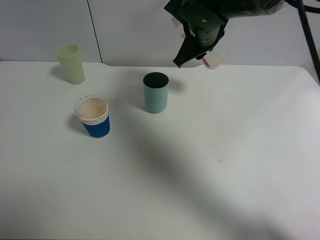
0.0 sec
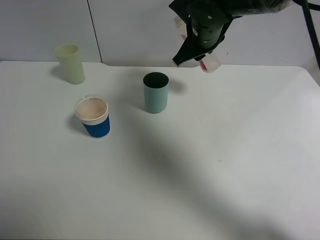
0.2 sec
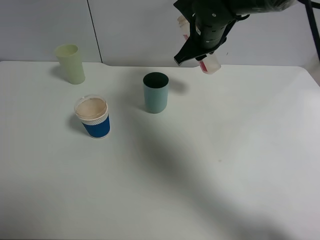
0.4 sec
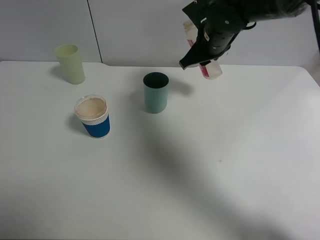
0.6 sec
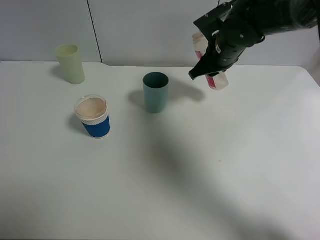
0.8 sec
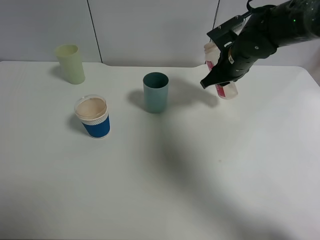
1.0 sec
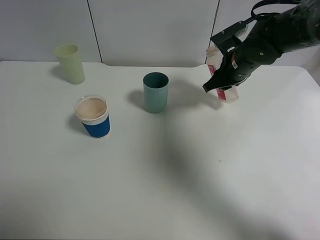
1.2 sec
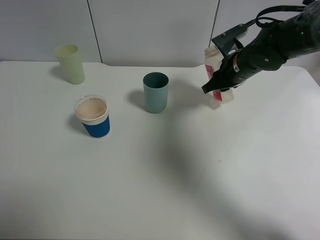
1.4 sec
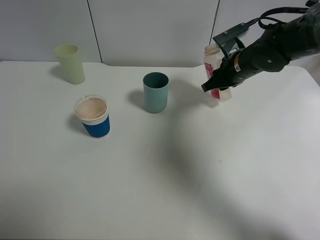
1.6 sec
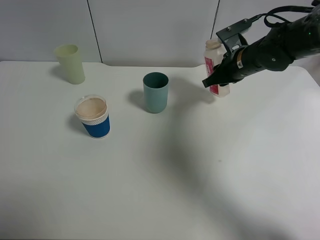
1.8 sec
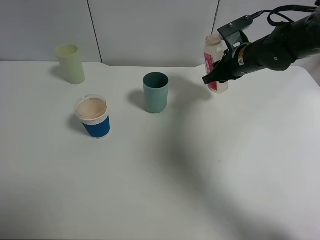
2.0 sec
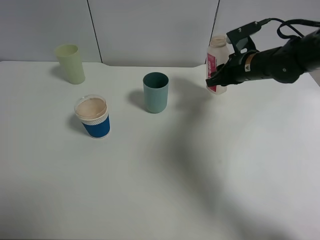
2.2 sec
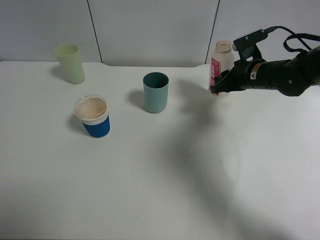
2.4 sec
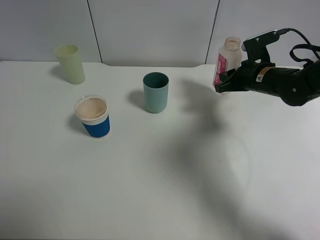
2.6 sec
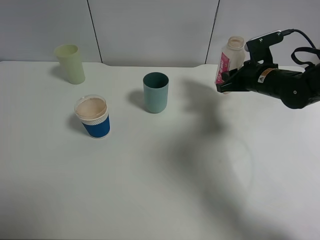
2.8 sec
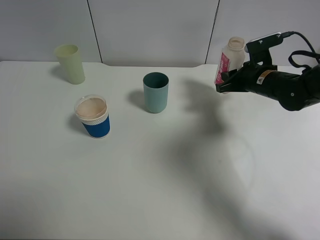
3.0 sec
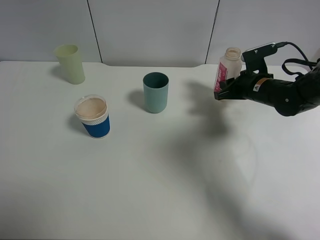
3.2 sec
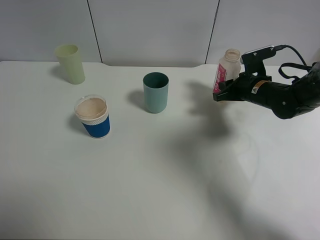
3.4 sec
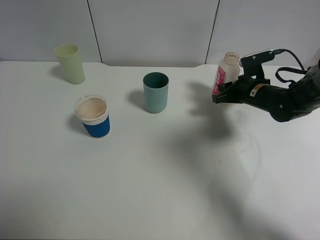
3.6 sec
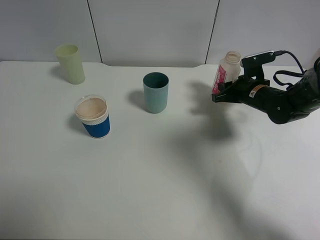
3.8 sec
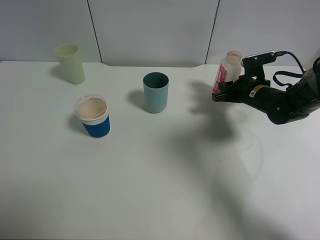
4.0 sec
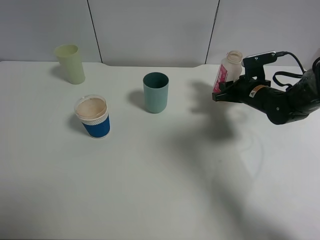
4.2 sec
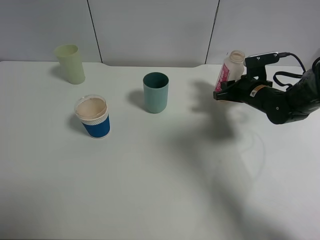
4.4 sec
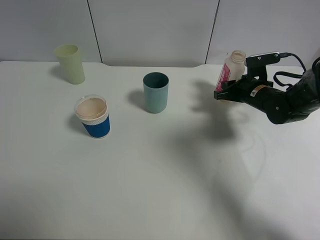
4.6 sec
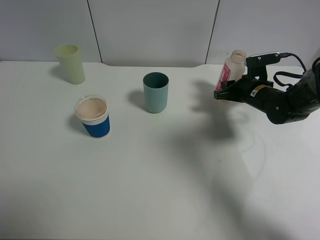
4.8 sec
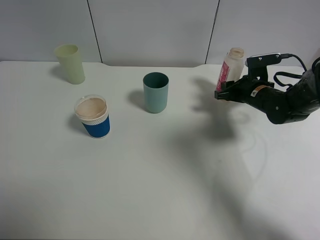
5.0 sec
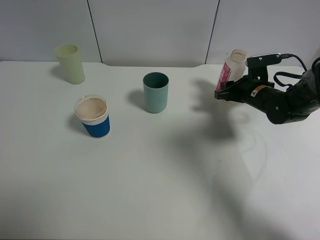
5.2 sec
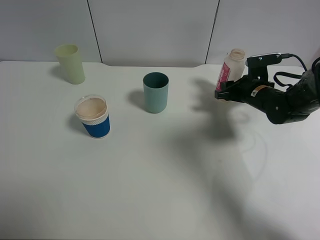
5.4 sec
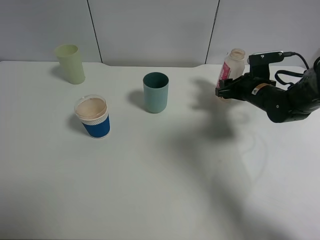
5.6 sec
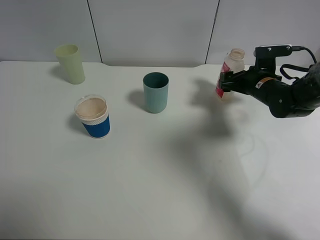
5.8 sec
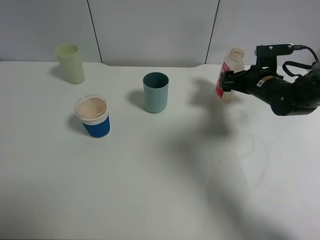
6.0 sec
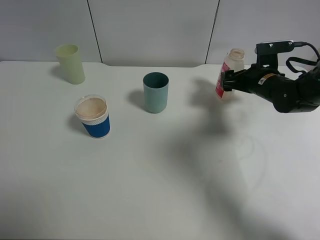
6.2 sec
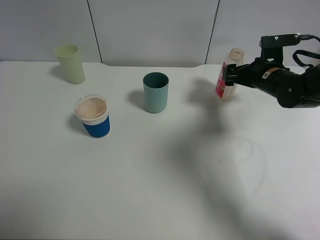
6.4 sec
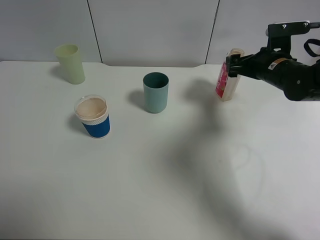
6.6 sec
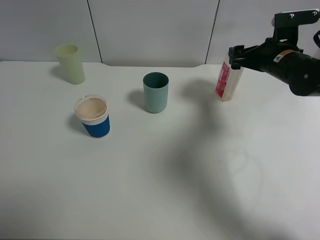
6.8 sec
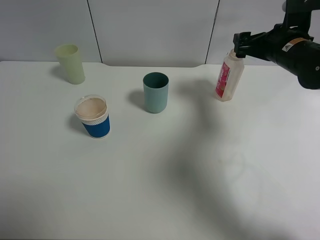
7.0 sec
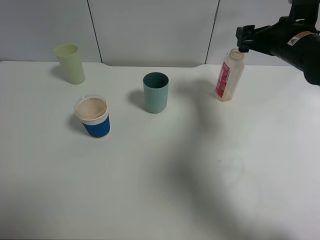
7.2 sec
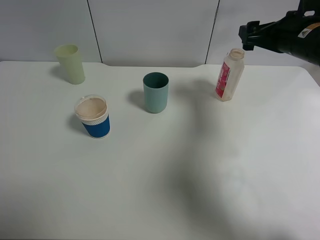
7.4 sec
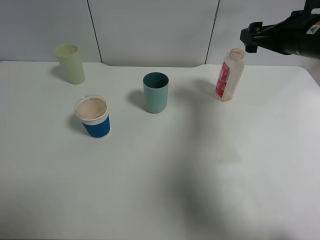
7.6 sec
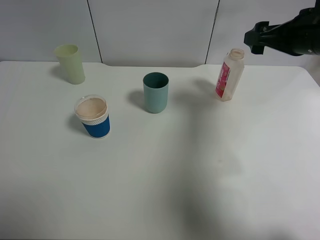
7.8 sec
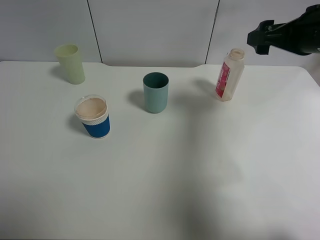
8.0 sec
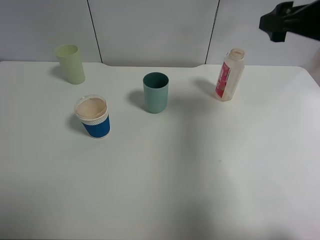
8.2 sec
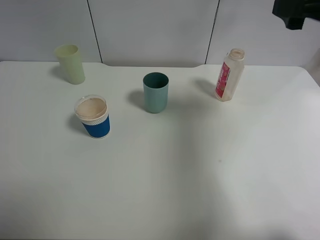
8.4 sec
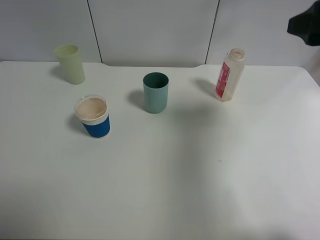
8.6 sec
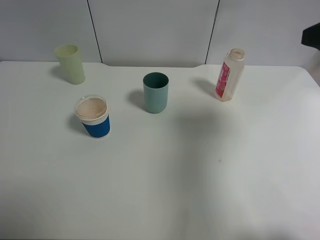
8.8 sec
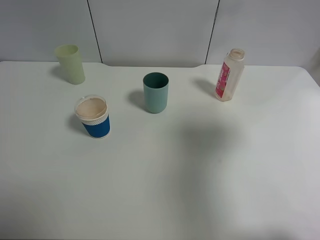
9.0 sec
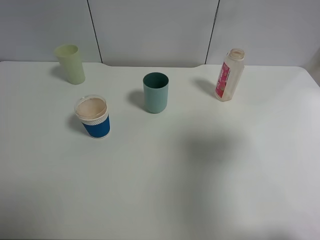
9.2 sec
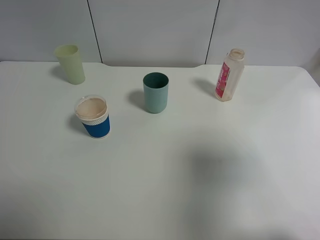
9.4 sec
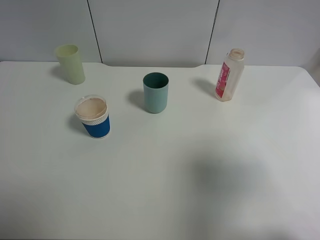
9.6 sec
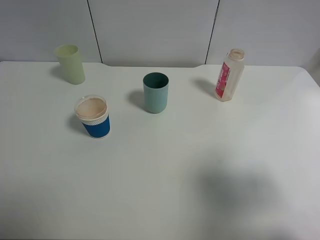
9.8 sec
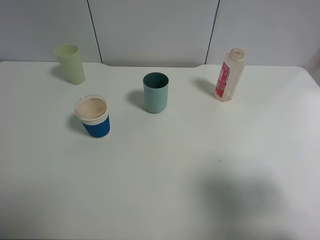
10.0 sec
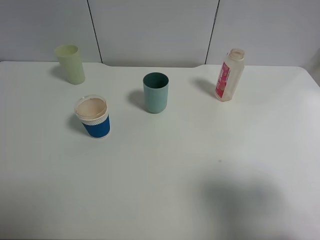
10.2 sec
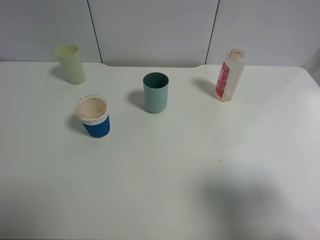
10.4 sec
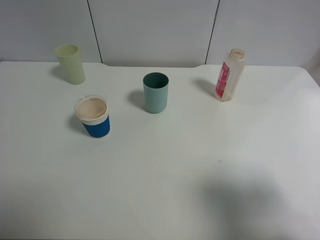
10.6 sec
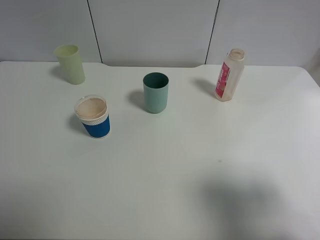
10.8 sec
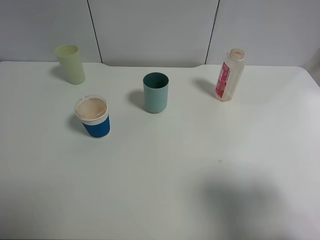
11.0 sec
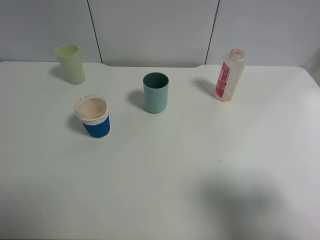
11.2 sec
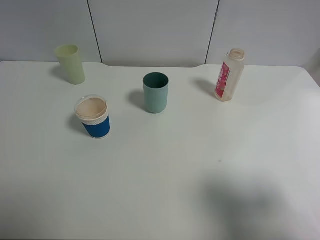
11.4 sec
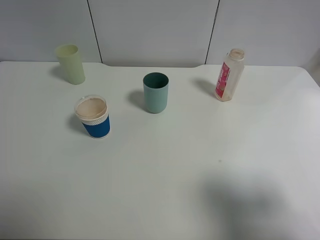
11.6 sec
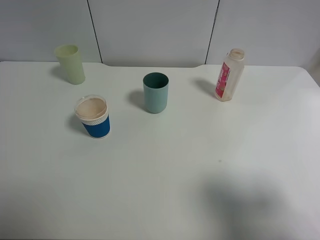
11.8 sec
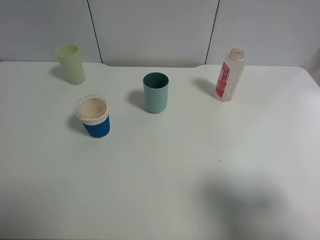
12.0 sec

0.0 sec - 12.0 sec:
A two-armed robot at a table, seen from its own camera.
Task of the whole recording: use a clamp to hold the bottle of the drink, pour the beverage into a random cup, then clamp the cup containing the drink and pour the drink into another random cup.
Step, 0.0 sec - 5.2 sec: Place the drink bottle on the table with right gripper.
0.0 sec - 1.6 sec: The right gripper travels to the right and downward by approximately 15 cm.
1.6 sec - 3.0 sec: The right gripper goes about 5 cm to the right.
3.0 sec - 4.4 sec: The right gripper ends up about 5 cm from where it was.
4.4 sec - 6.0 sec: The right gripper opens up.
6.0 sec - 7.6 sec: The right gripper heads upward, covering some 15 cm.
7.6 sec - 9.0 sec: The right gripper shifts about 20 cm backward and upward.
9.0 sec - 10.4 sec: The right gripper moves backward and downward, about 15 cm.

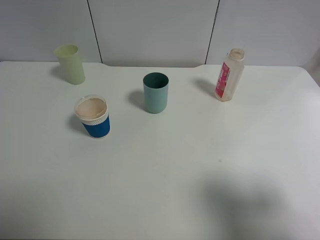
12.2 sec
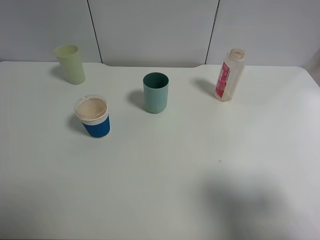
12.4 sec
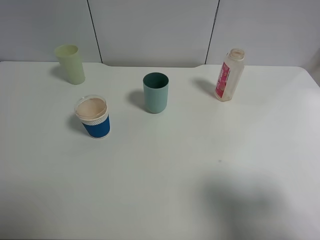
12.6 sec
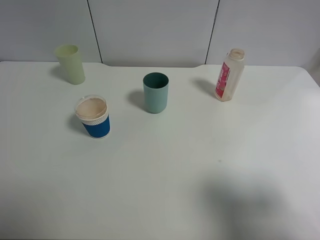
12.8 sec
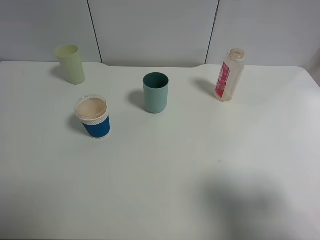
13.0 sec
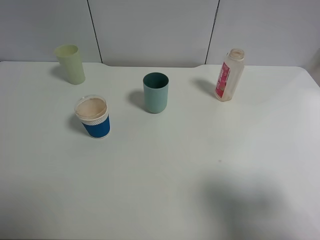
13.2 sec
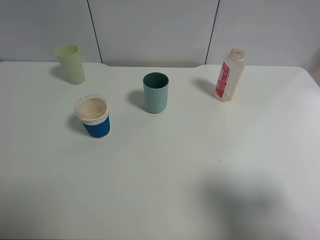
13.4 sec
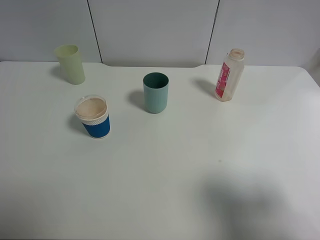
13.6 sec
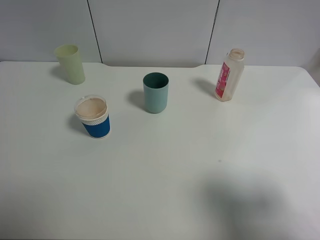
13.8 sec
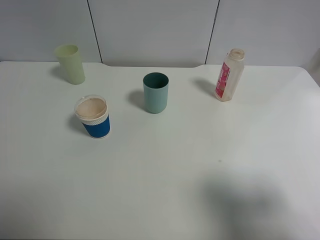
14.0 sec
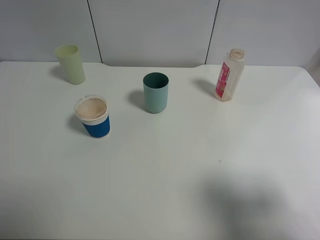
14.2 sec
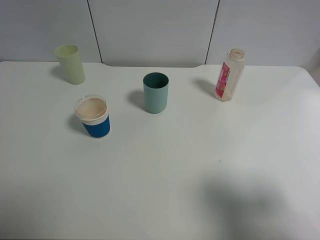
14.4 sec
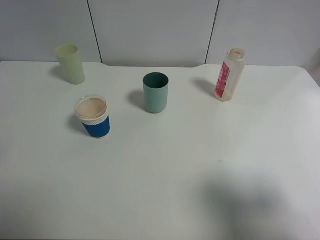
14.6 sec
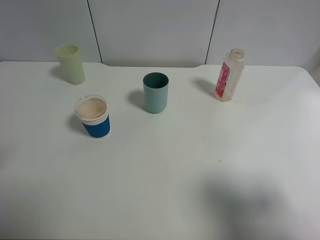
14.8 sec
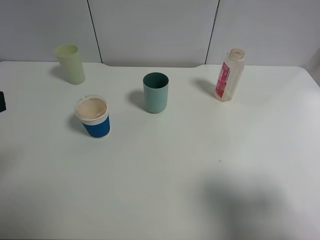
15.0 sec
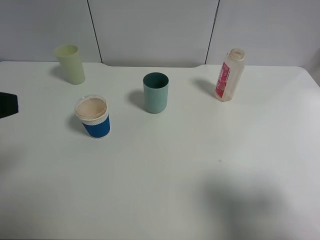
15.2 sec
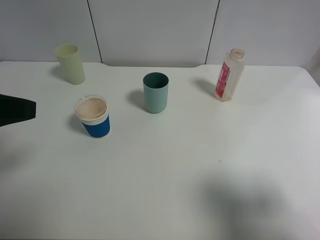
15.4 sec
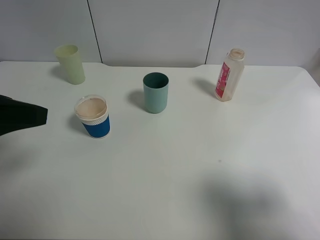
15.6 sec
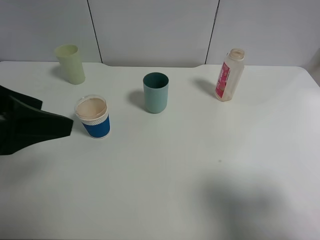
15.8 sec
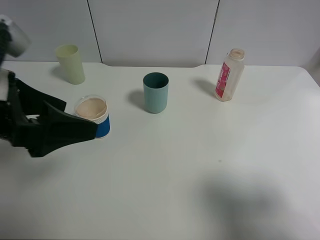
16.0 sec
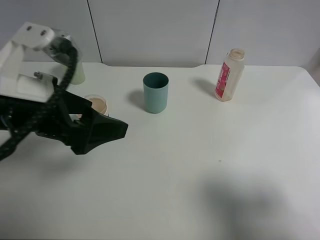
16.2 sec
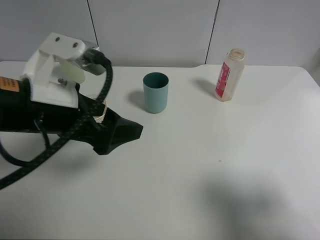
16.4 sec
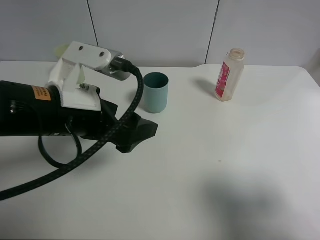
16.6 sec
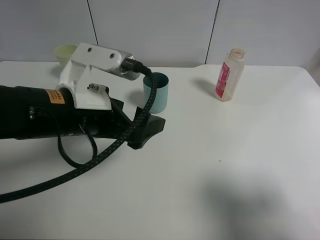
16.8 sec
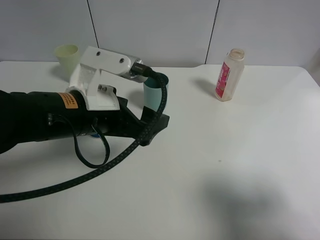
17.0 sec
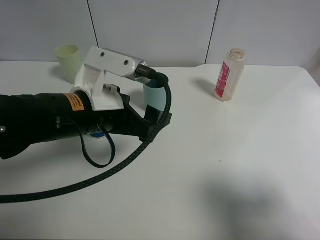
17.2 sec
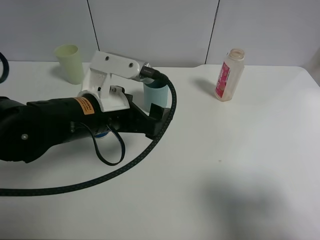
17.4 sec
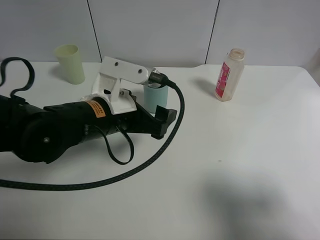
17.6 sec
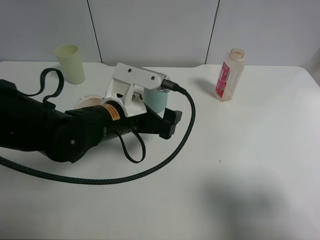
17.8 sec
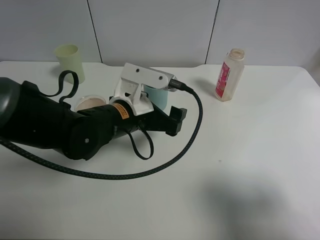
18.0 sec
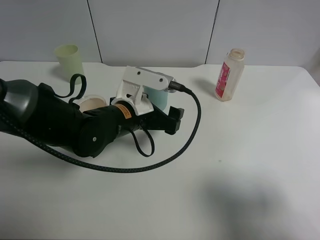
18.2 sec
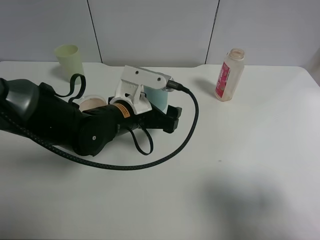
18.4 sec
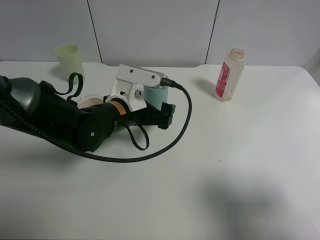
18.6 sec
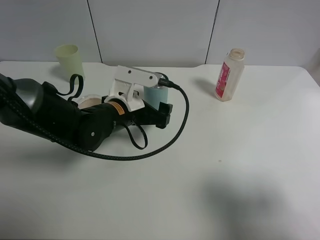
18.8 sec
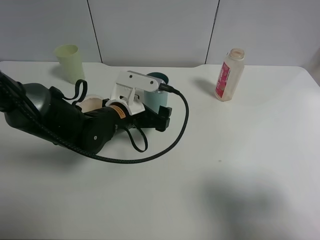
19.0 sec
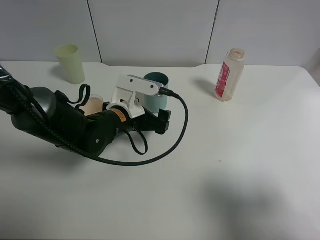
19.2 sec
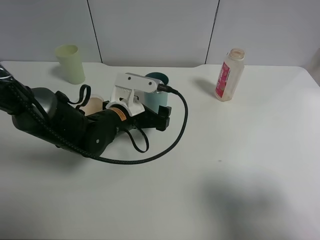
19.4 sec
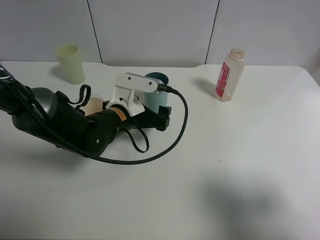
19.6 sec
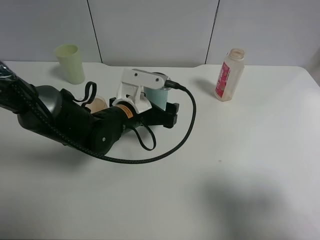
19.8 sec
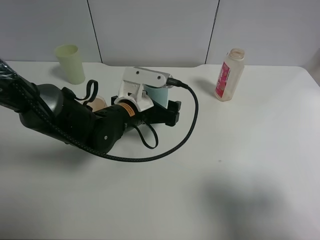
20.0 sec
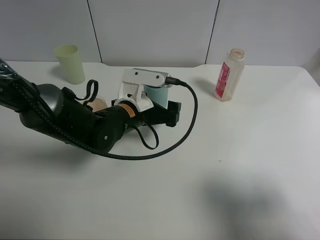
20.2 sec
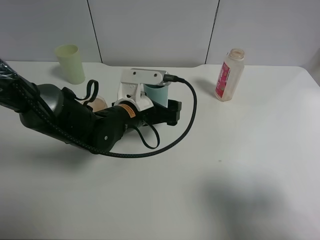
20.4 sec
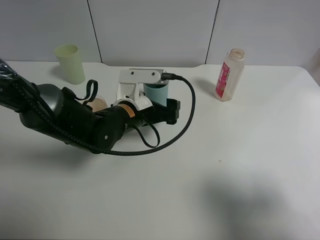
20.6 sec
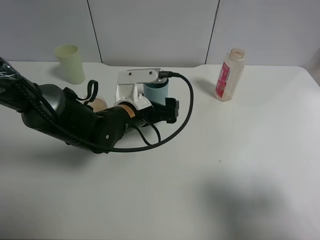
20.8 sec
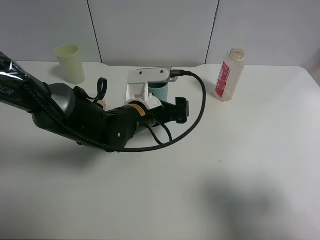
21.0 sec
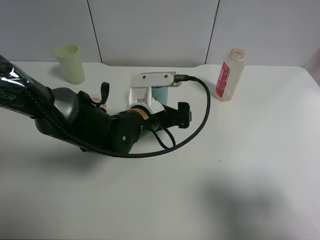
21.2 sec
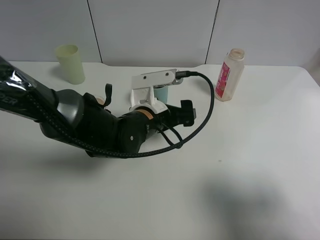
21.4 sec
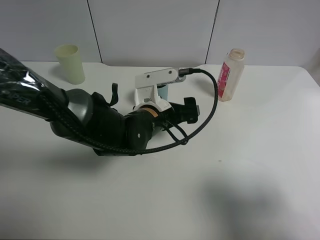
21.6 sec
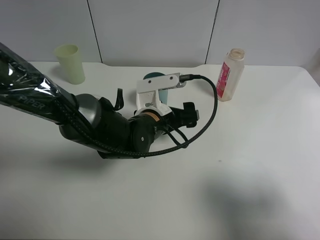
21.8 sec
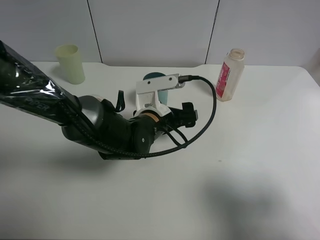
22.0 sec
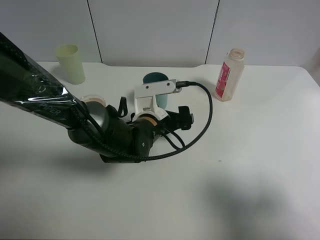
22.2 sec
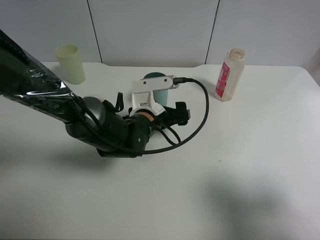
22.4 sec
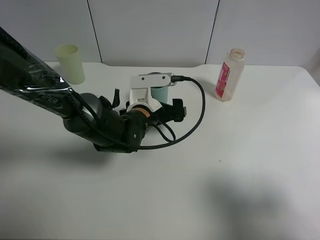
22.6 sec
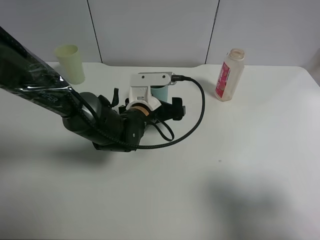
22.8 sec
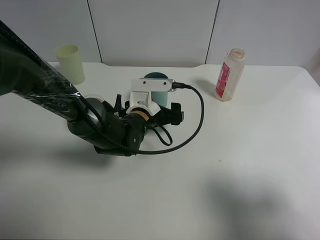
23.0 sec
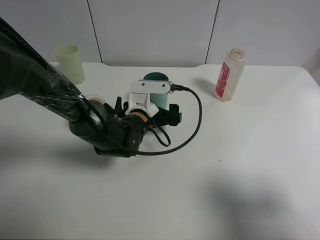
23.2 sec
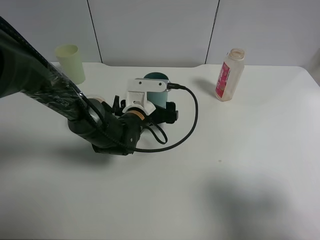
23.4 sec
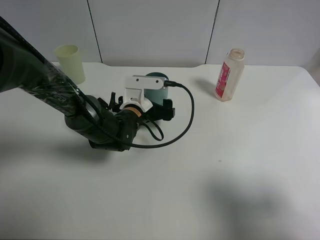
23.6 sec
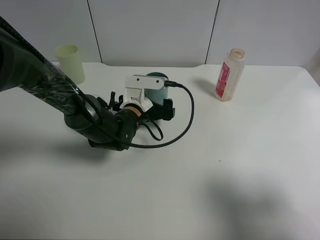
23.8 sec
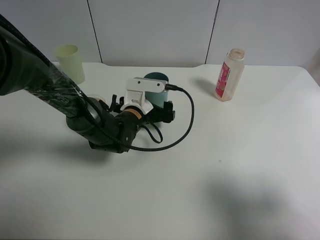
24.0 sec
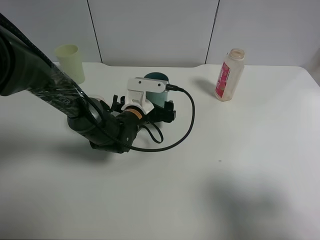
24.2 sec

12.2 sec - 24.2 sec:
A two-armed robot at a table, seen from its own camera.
Task of the whole recording: use a clamp to hold the bottle of the drink, pour the beverage into a random cup, then clamp the cup containing the drink and pour the drink into another random cup.
12.2 sec - 13.8 sec: Both grippers stay put.
13.8 sec - 15.2 sec: The left gripper travels forward by some 10 cm.
15.2 sec - 16.6 sec: The left gripper moves to the right, forward and downward, approximately 20 cm.
16.6 sec - 18.2 sec: The left gripper heads downward, forward and to the right, covering about 15 cm.
18.2 sec - 21.2 sec: There are only small adjustments of the grippers.
21.2 sec - 22.6 sec: The grippers stay close to where they were, moving slightly.
22.6 sec - 24.2 sec: The grippers stay close to where they were, moving slightly.
